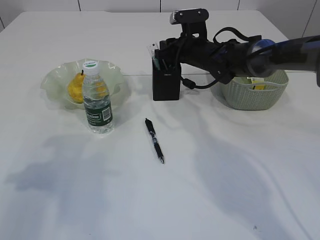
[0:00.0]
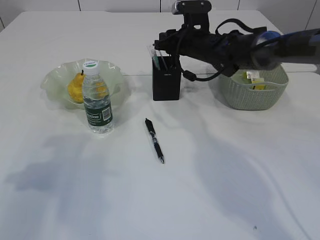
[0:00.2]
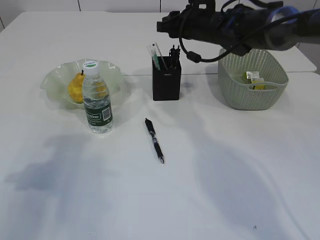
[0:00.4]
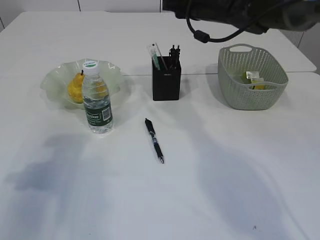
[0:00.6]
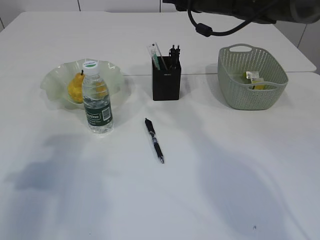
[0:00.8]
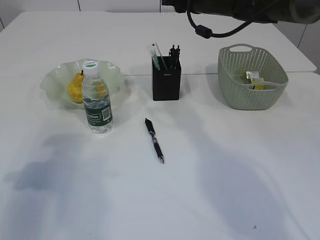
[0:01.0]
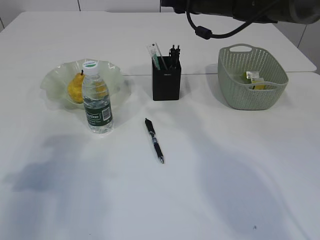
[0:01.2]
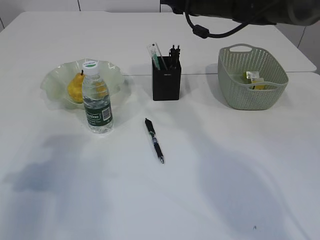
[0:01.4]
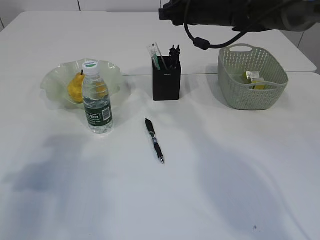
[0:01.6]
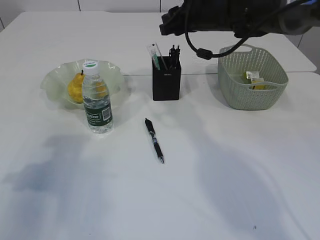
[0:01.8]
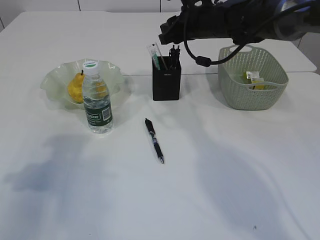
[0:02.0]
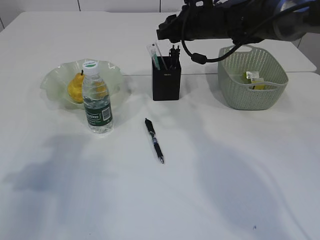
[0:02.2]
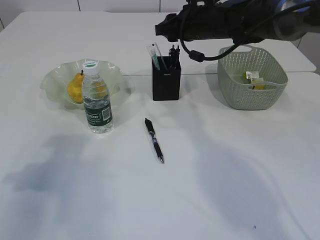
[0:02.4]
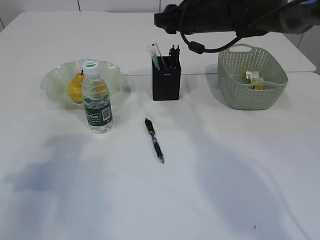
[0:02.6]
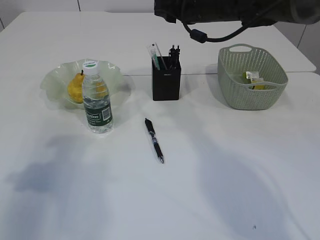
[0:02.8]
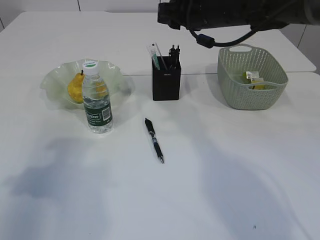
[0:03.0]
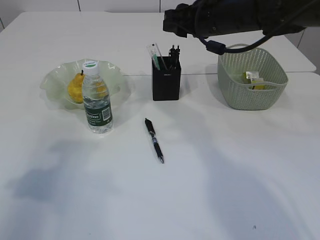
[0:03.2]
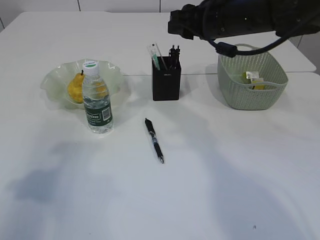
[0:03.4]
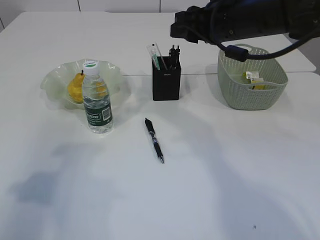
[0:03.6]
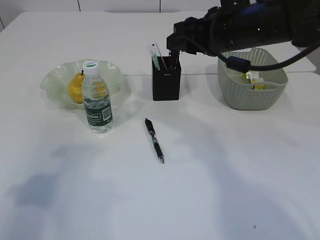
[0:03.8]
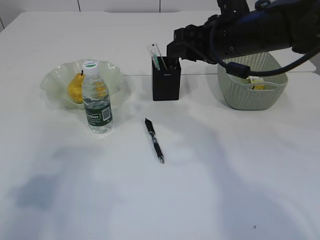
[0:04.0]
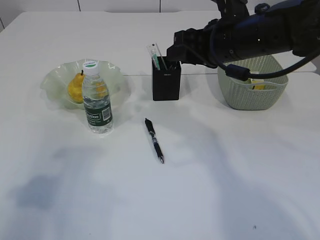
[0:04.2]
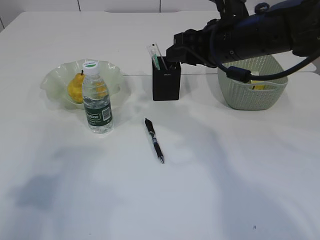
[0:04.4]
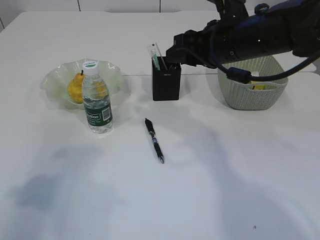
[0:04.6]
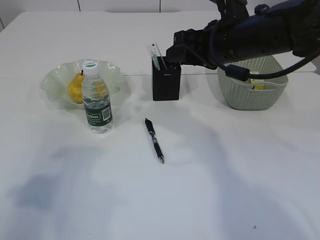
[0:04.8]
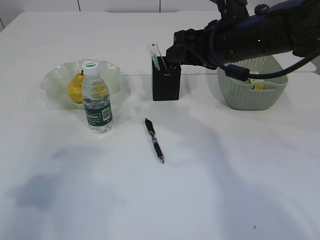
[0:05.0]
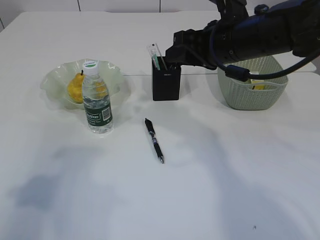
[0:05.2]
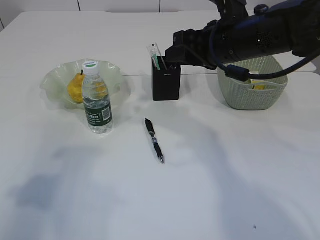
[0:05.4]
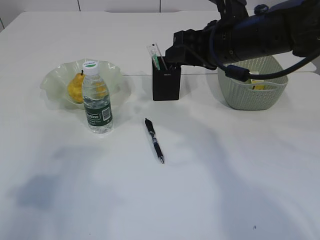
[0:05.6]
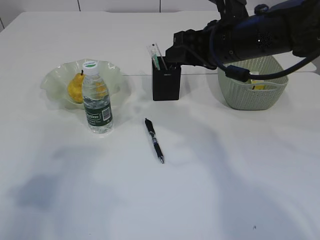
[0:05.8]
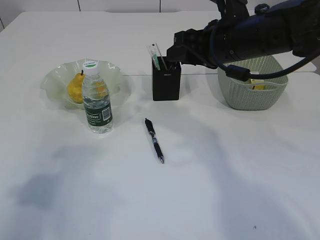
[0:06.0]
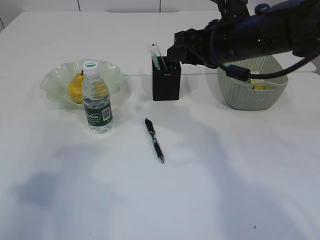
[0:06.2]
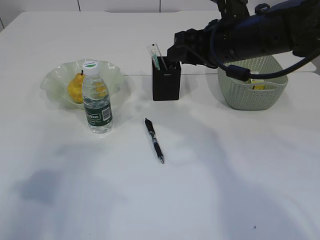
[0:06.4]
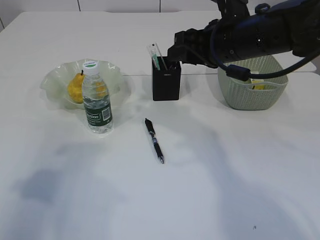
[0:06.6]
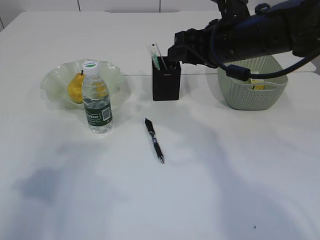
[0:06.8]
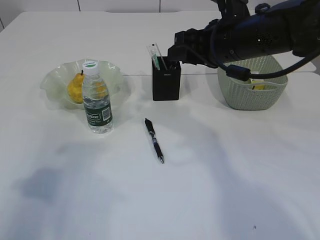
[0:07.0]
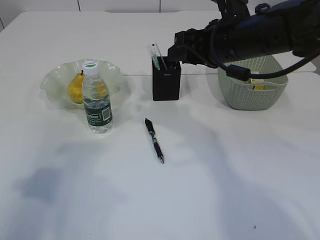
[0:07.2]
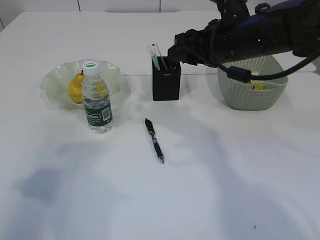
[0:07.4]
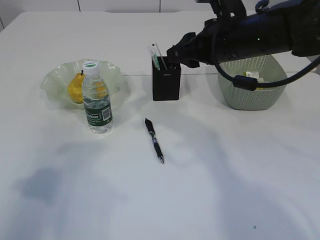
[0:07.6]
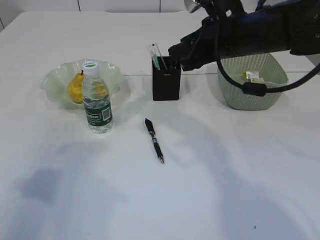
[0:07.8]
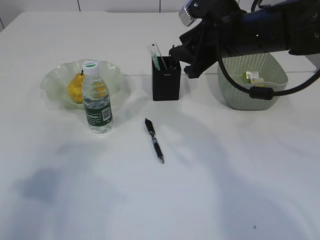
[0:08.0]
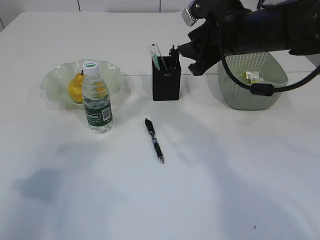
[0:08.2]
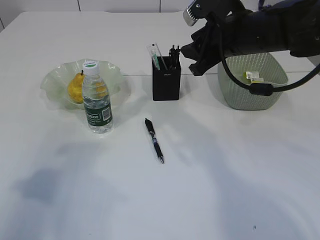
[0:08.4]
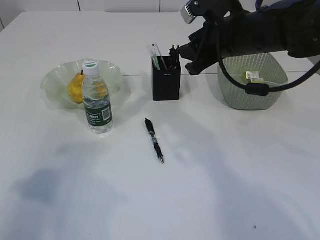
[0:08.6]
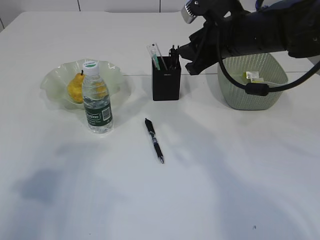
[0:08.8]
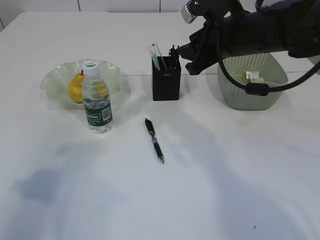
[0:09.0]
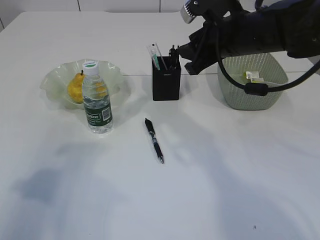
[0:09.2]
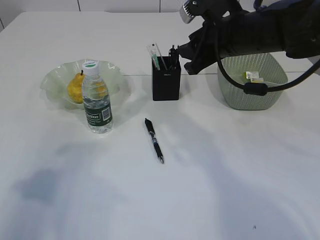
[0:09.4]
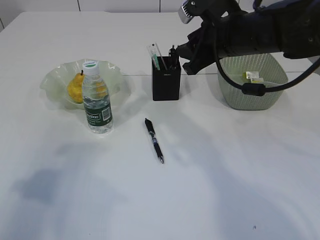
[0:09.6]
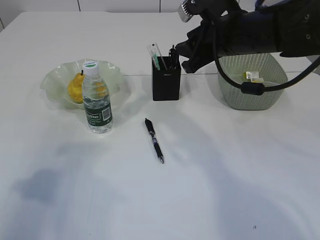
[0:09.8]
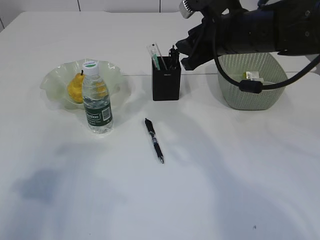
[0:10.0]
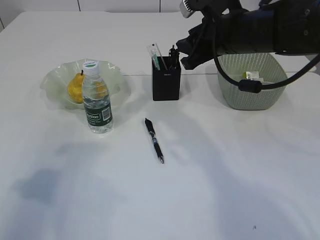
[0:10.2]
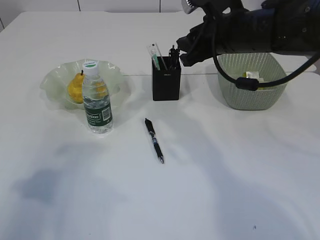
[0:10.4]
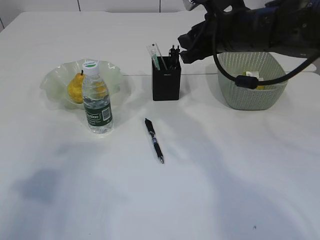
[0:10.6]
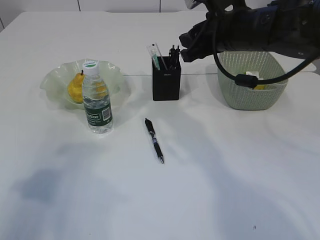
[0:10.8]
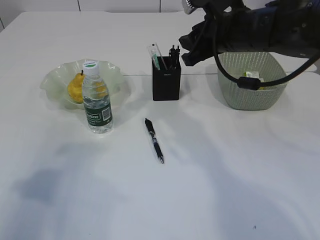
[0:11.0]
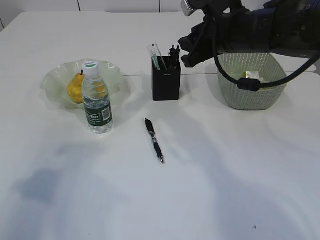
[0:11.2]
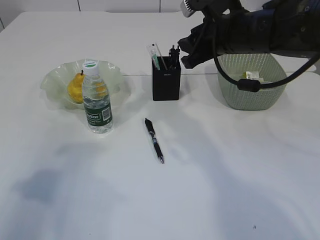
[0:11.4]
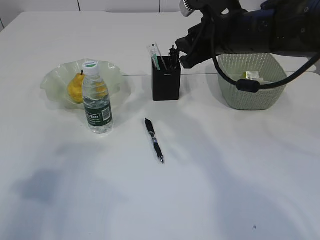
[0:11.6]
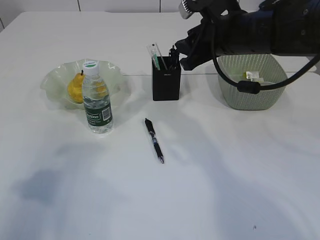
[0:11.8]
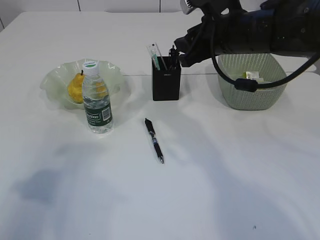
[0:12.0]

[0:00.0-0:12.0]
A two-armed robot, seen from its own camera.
0:00.0 to 0:01.6: The right gripper shifts roughly 10 cm upward.
0:01.6 to 0:03.0: The grippers move only a little.
0:03.0 to 0:04.4: The left gripper changes place by some 5 cm. The right gripper moves backward, some 10 cm.
0:04.4 to 0:06.0: Both grippers stay about where they are.
0:06.0 to 0:07.6: The grippers make only small movements.
0:09.0 to 0:10.4: There are only small adjustments of the grippers.
0:10.4 to 0:12.0: The two grippers keep their place.

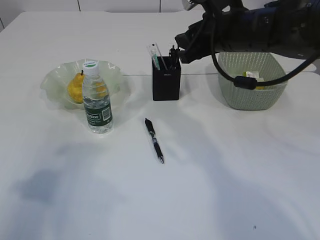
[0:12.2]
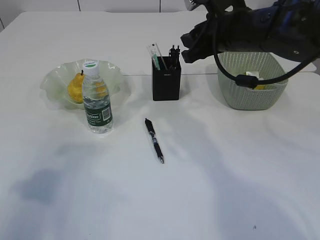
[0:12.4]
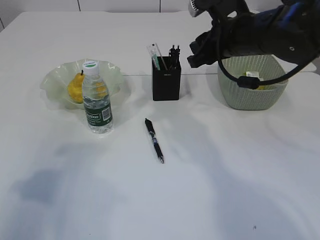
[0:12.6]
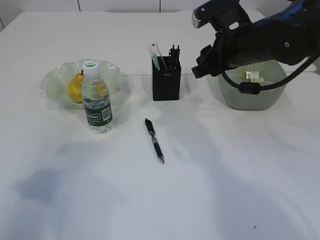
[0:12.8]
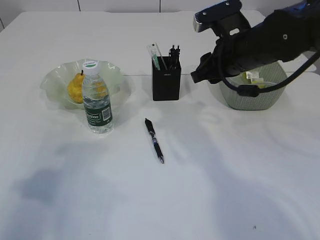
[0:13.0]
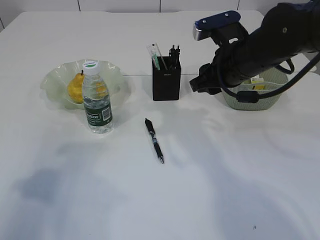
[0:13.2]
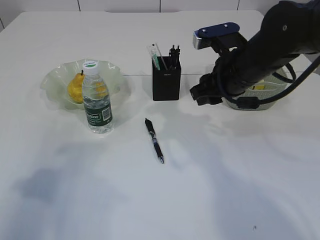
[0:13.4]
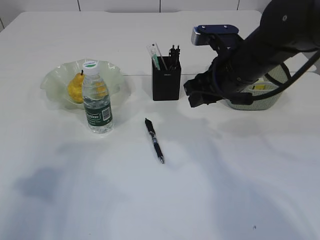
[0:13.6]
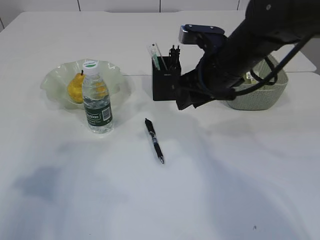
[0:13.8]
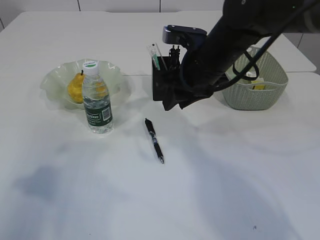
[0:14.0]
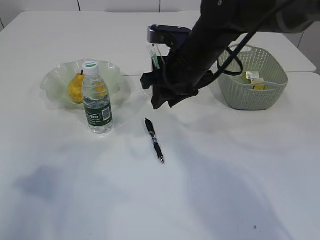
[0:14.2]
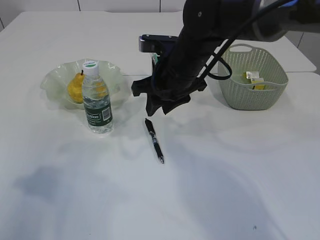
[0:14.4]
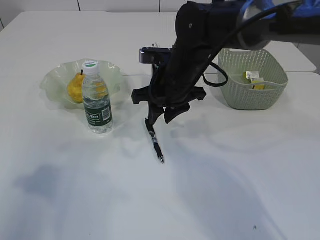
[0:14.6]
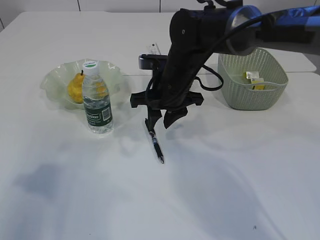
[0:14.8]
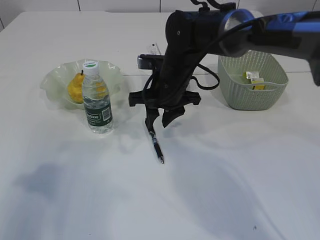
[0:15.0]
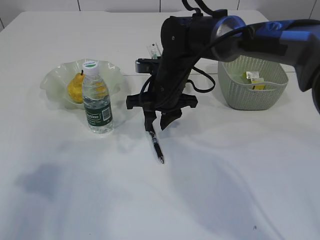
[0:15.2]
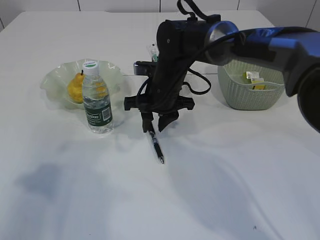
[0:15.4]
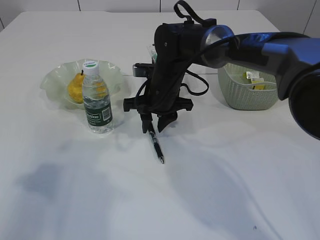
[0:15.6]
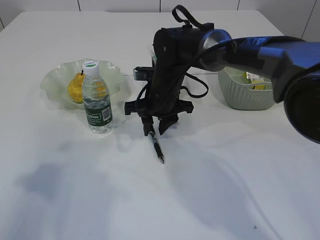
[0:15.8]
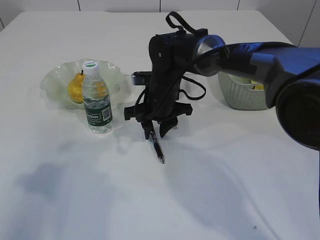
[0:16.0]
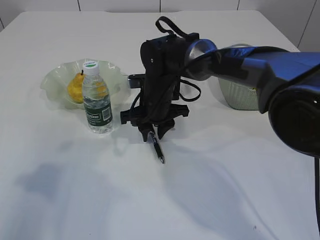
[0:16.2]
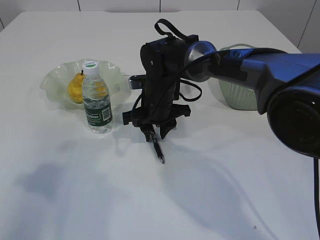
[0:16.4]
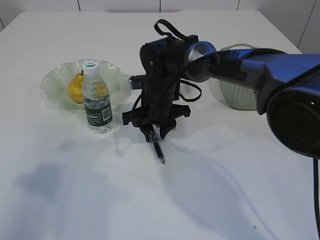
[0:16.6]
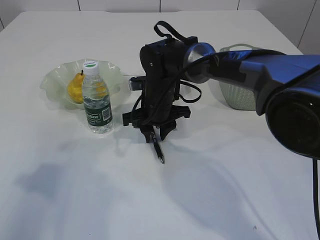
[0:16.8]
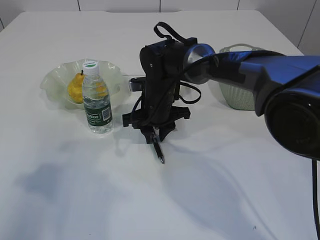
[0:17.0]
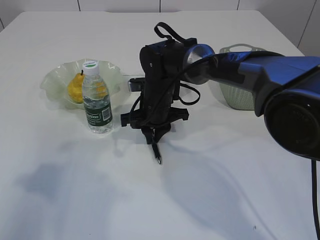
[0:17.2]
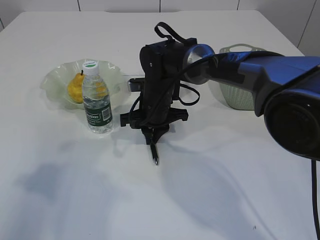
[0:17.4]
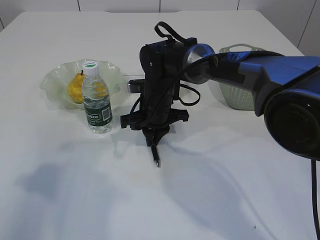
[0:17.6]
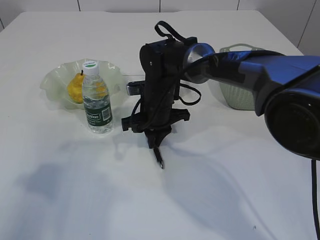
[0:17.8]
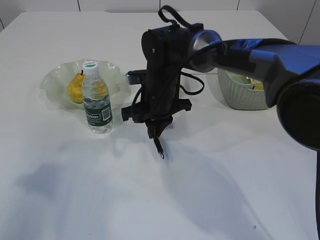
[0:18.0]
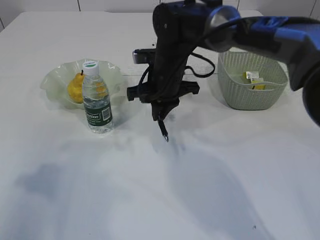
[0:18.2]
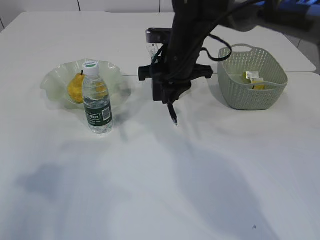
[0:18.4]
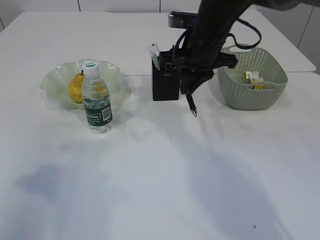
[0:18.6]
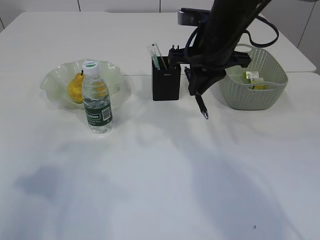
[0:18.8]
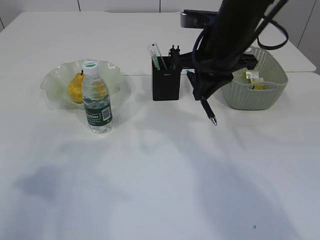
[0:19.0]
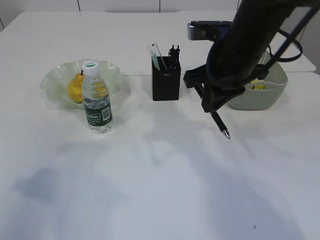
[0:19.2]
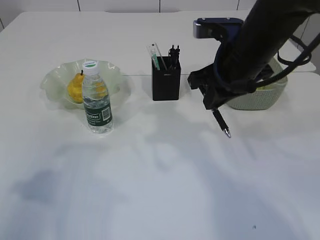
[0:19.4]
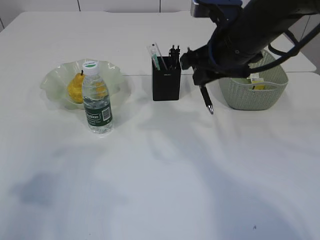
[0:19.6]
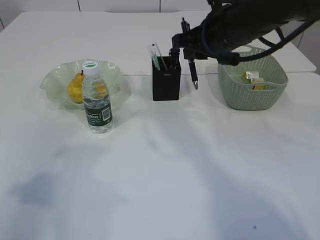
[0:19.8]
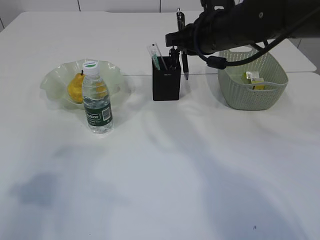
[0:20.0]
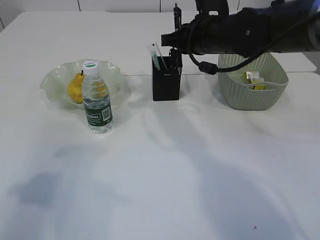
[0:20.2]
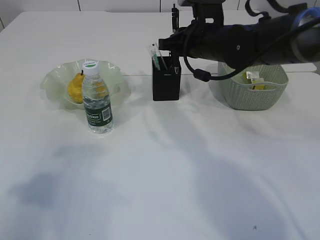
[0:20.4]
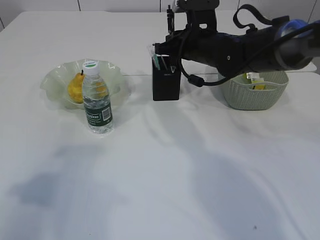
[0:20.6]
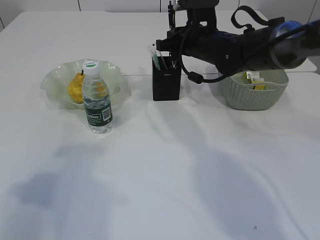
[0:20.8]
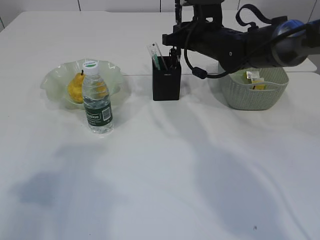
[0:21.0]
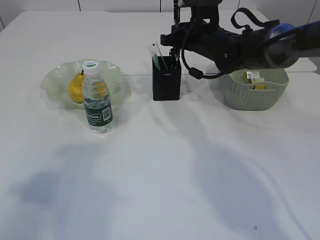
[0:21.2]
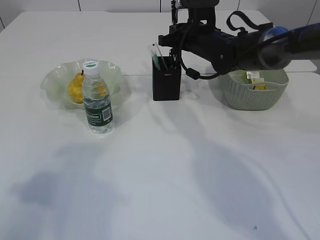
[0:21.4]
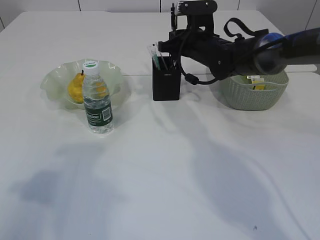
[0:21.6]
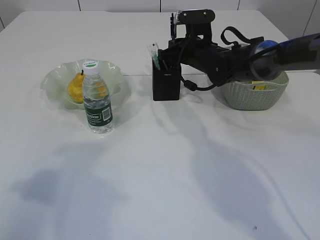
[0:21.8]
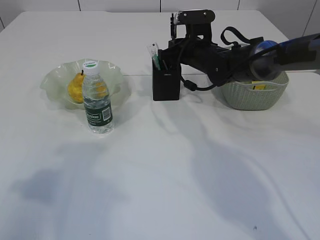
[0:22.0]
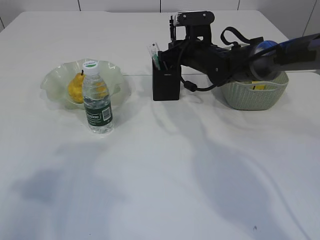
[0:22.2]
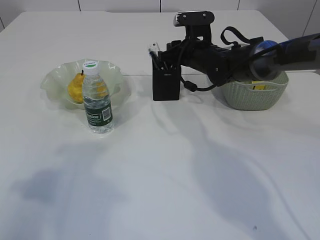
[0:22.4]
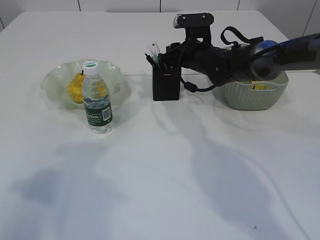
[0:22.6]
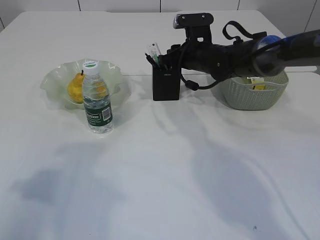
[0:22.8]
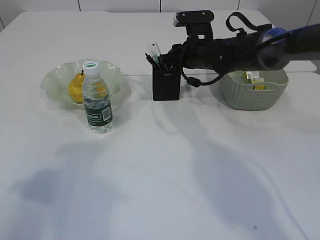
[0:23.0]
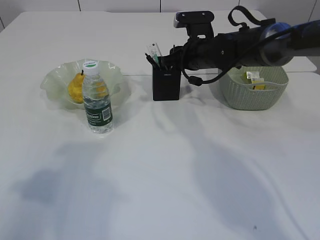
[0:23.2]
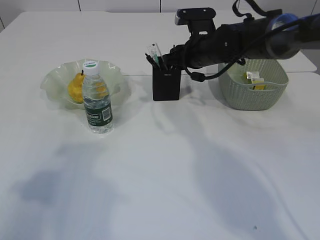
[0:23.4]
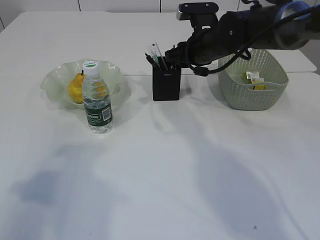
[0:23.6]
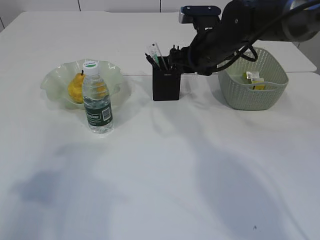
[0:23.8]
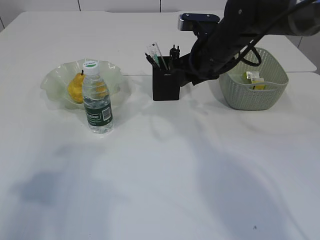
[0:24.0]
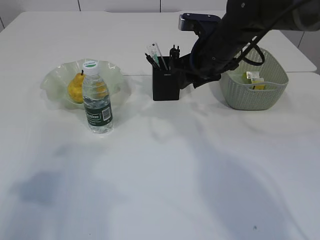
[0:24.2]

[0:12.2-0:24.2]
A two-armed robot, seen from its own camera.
Step, 0:12.2 to 0:18.2: Pick up the pen with right arm.
0:13.8 to 0:15.2: The right gripper is displaced to the left, downward and forward by some 10 cm.
0:15.2 to 0:16.6: The grippers move only a little.
0:16.6 to 0:18.2: The right gripper shifts approximately 5 cm upward, and closes.
0:18.2 to 0:19.8: The right gripper moves upward and to the right, some 15 cm.
0:19.8 to 0:21.2: The right gripper is displaced forward and downward by roughly 15 cm.
0:21.2 to 0:22.6: The right gripper opens up.
0:22.6 to 0:24.2: The right gripper travels backward and upward by roughly 10 cm.
